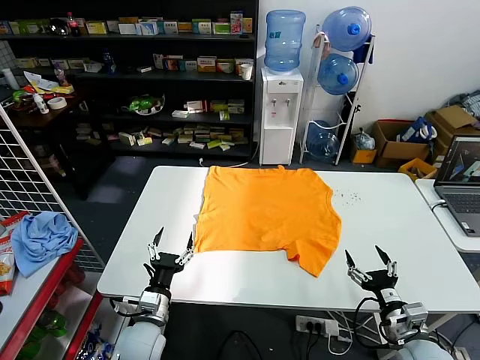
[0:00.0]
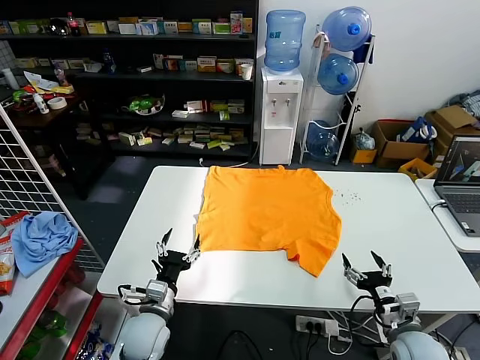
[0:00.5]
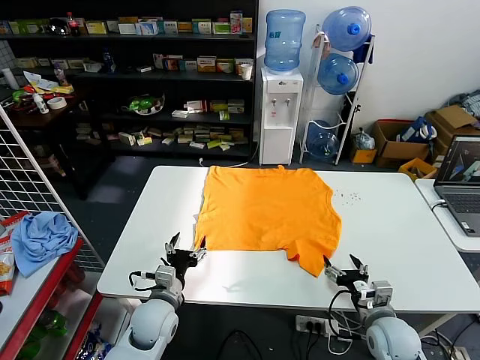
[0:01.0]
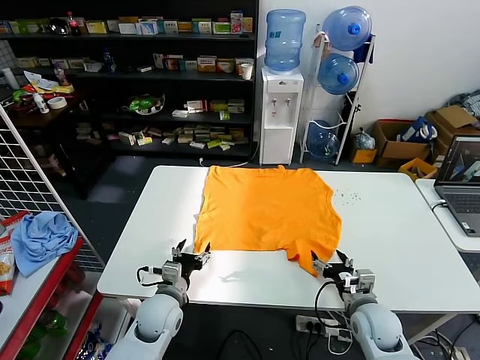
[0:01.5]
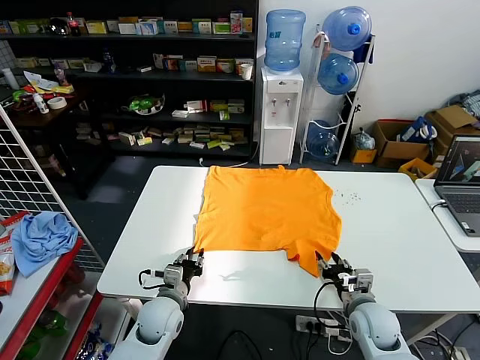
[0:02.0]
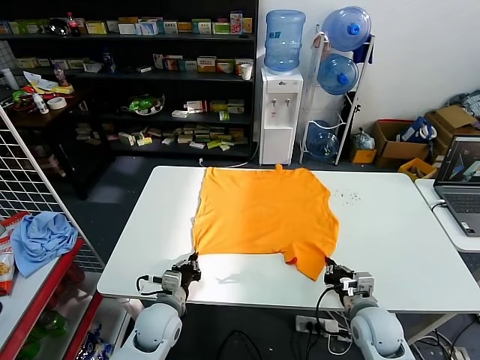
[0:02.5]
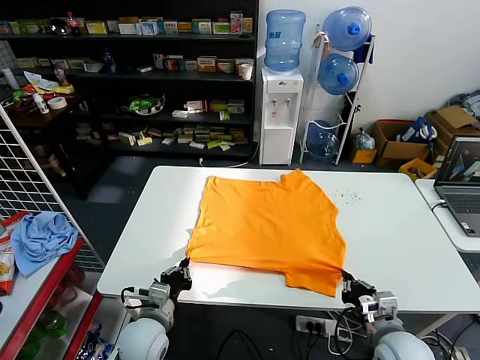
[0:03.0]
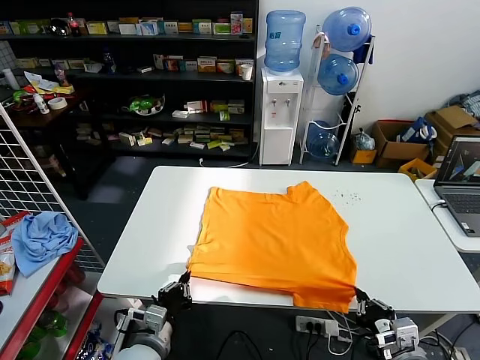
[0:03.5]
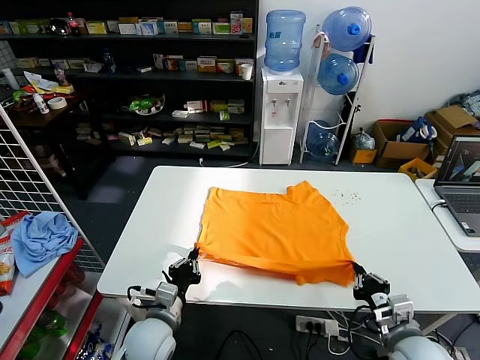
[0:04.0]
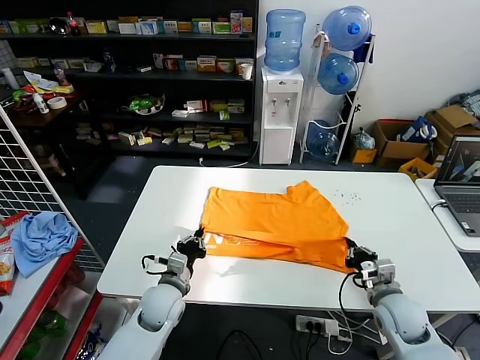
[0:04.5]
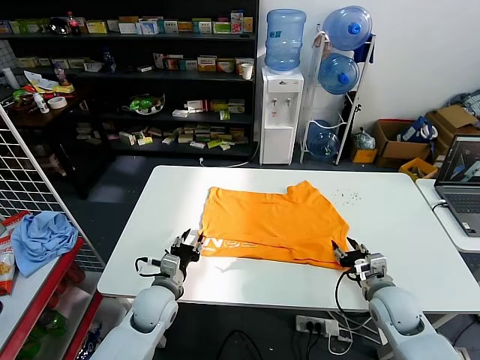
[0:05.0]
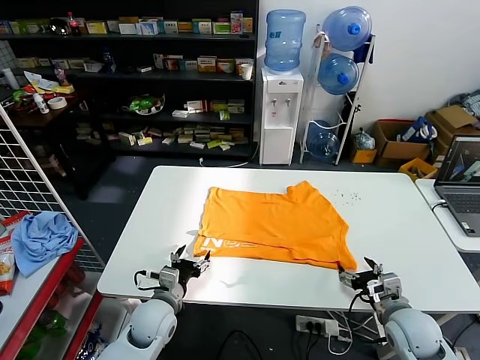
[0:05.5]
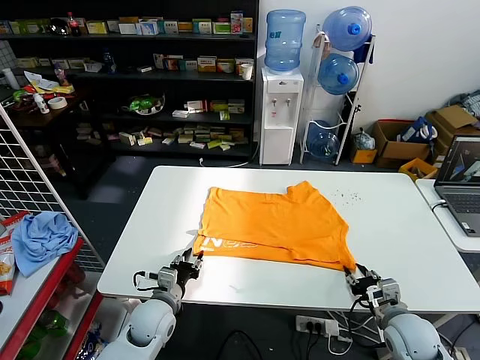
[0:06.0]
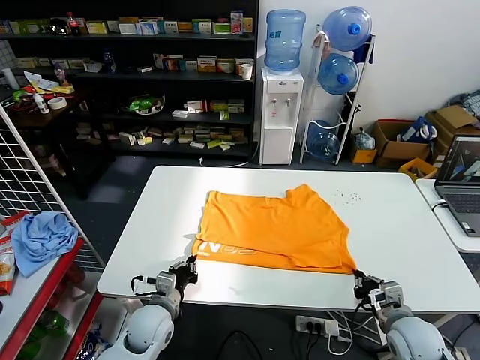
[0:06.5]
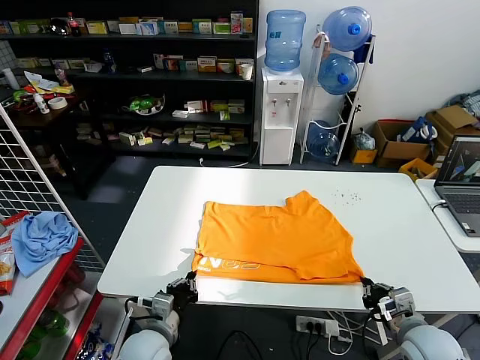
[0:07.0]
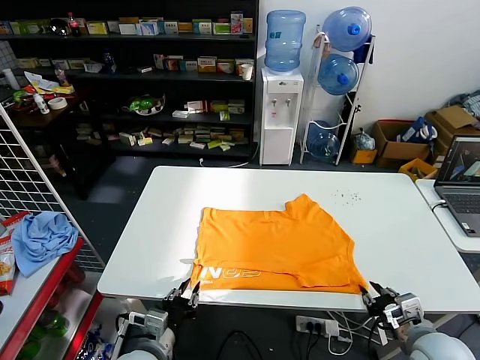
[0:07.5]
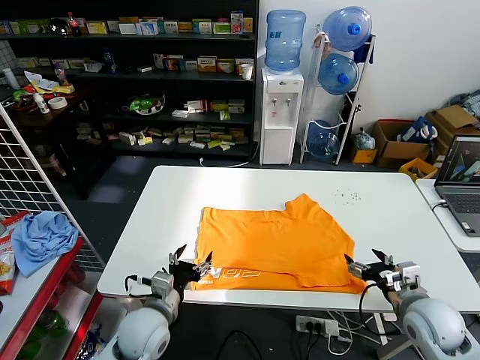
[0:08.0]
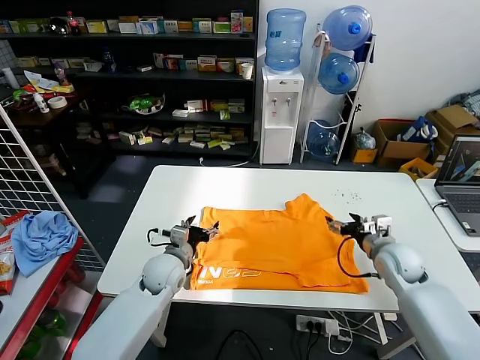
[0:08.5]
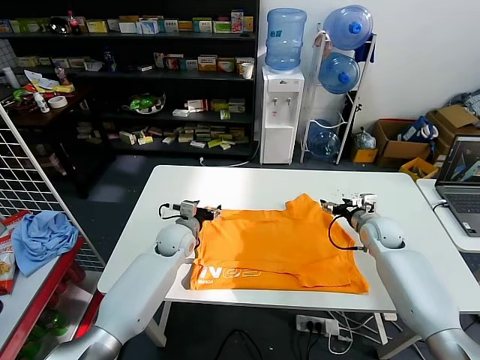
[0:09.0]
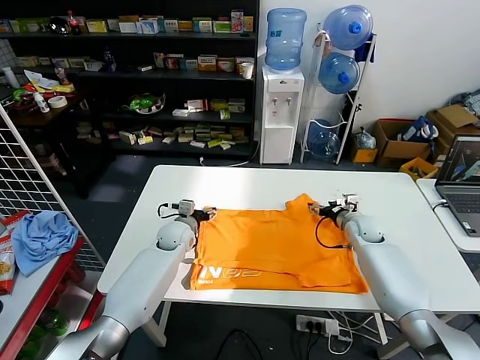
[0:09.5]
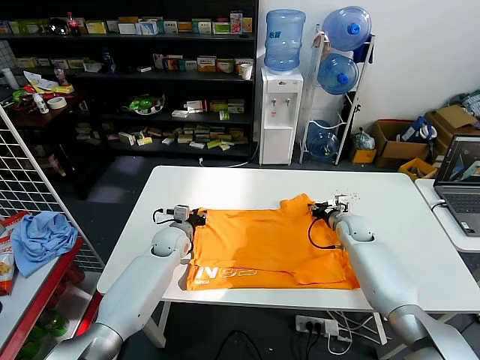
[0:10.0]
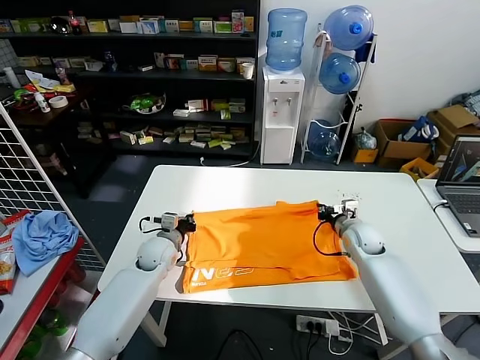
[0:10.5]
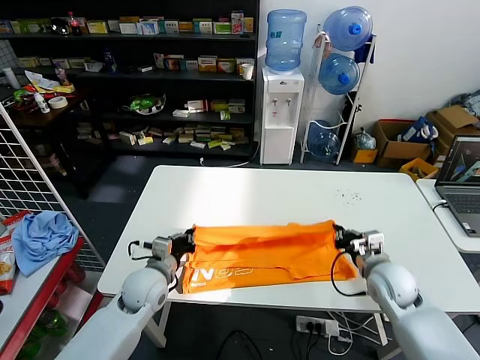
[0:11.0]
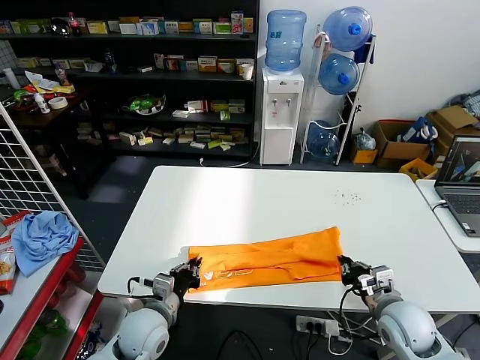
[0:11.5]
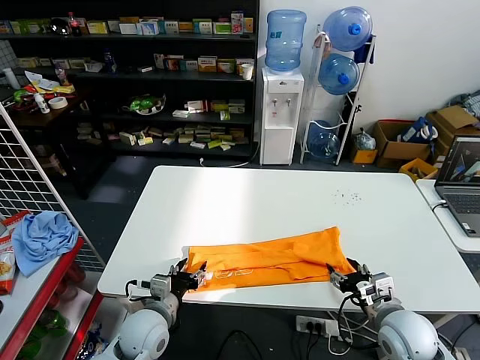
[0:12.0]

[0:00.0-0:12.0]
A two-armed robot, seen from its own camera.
Task of the whole recording: fold and organize the clothes.
Step, 0:00.0 to 0:02.0: use both grippers simultaneously to clamp the lower edge of the clothing fabric.
Step, 0:03.0 to 0:05.0: use both grippers to drag the lower edge of the fabric forward and fold it over the upper edge.
Step, 0:05.5 to 0:07.5: Drag the clothes downward with both gripper.
Step, 0:08.0 to 0:10.5: use both grippers simultaneously to clamp the upper edge of the clothing fabric.
Step, 0:11.0 to 0:12.0: use both grippers to drag the upper edge of the fabric backward and fold it over the lower edge.
0:02.0 to 0:04.0: The left gripper moves backward, about 5 cm, and closes up. The right gripper goes roughly 10 cm backward and upward, and closes up.
0:04.0 to 0:06.0: The right gripper opens. The left gripper shifts about 5 cm forward, and opens its fingers.
0:06.0 to 0:08.0: The left gripper shifts some 10 cm upward and backward, and opens up. The right gripper moves upward, roughly 5 cm, and opens up.
0:08.0 to 0:10.0: The grippers both shift forward by roughly 25 cm. The left gripper closes up; the right gripper closes its fingers.
0:10.0 to 0:12.0: Both grippers travel together backward, about 25 cm. The left gripper closes, then reopens. Meanwhile the right gripper opens its fingers.

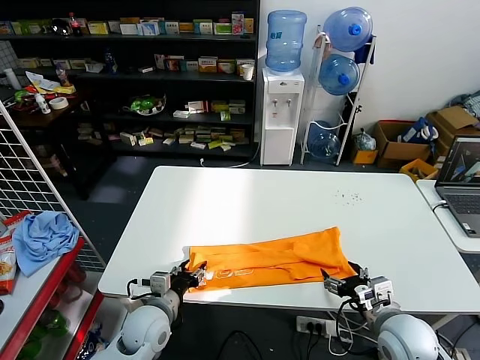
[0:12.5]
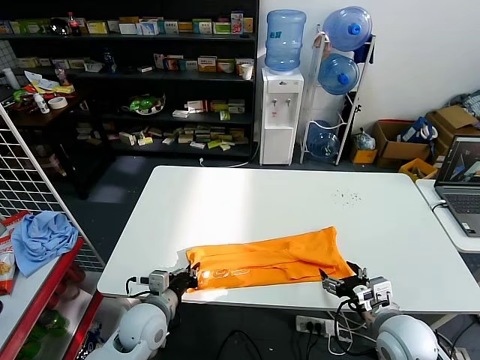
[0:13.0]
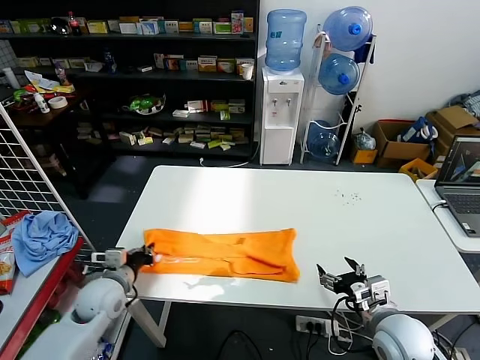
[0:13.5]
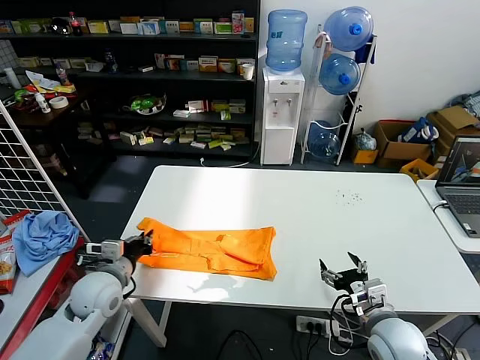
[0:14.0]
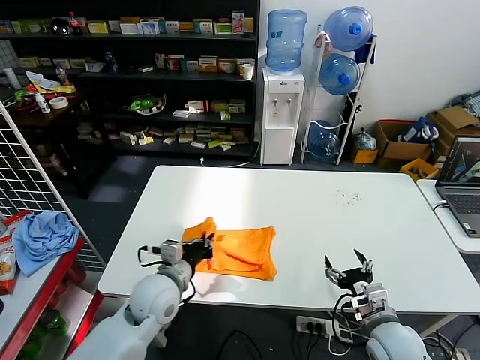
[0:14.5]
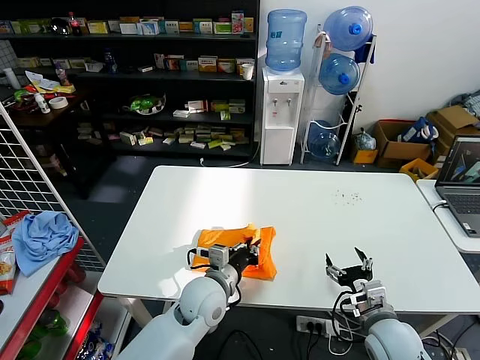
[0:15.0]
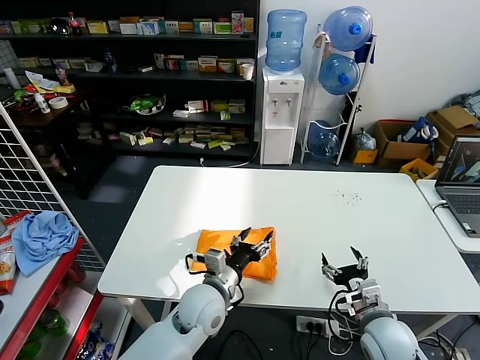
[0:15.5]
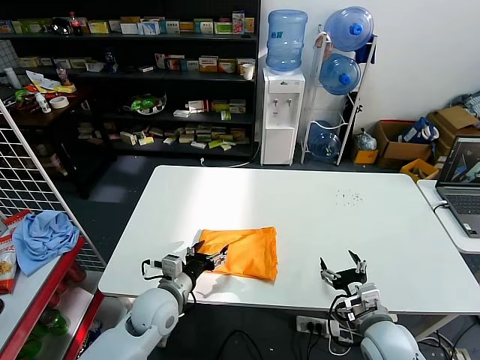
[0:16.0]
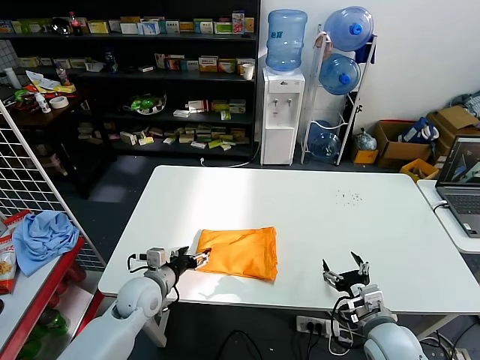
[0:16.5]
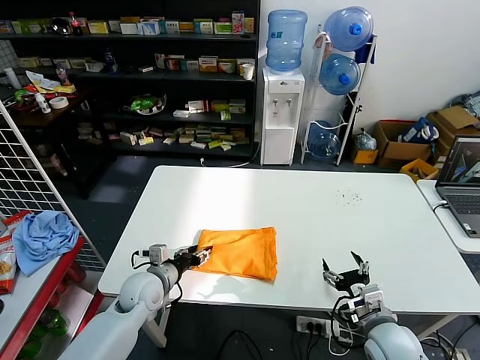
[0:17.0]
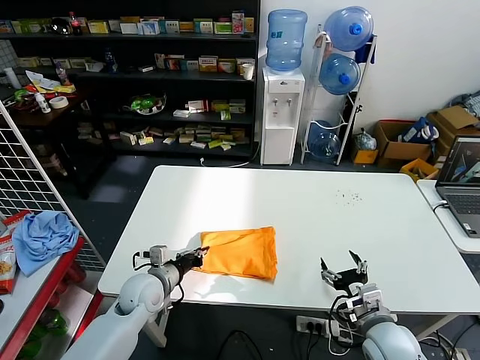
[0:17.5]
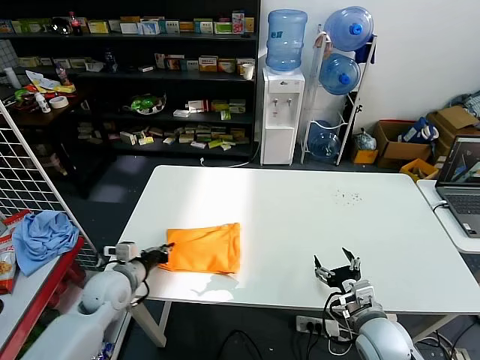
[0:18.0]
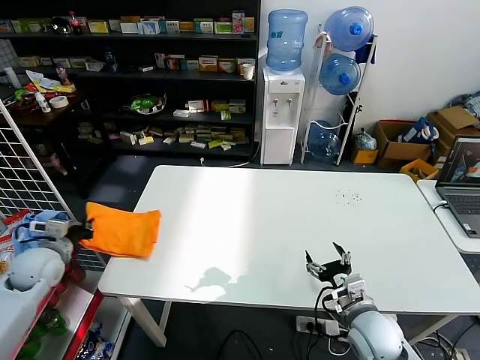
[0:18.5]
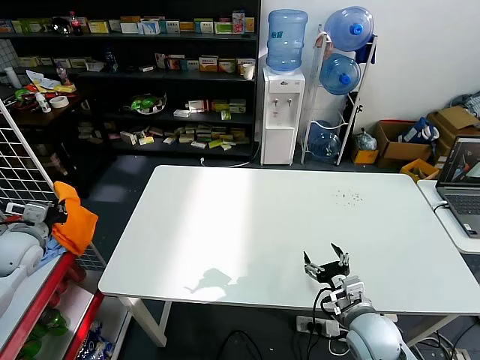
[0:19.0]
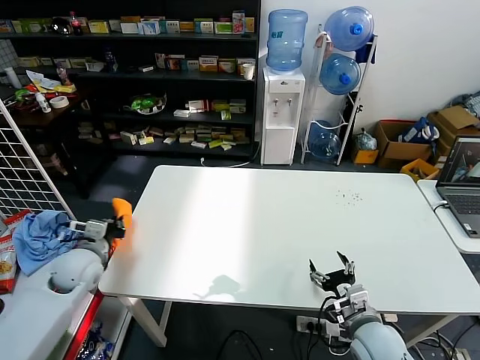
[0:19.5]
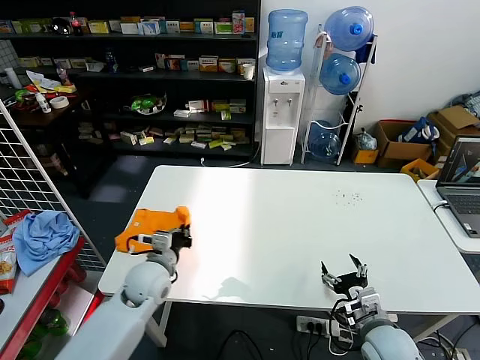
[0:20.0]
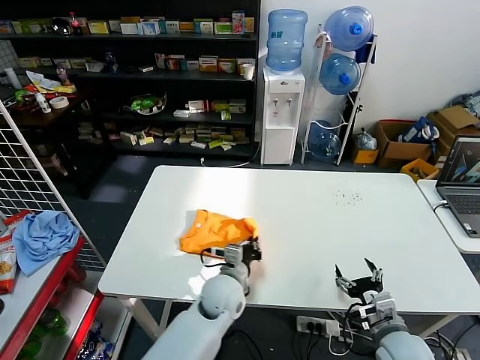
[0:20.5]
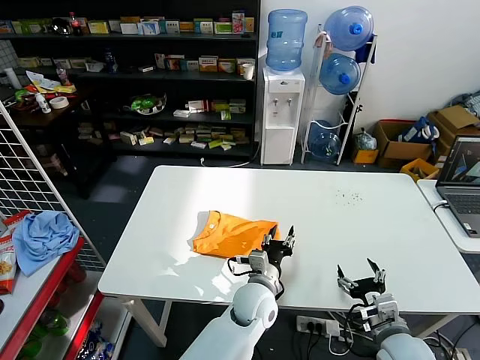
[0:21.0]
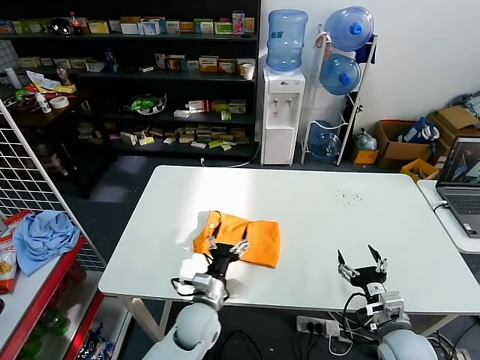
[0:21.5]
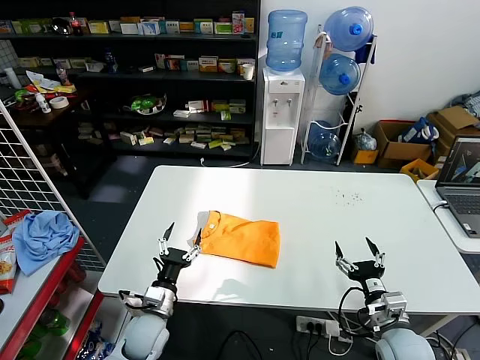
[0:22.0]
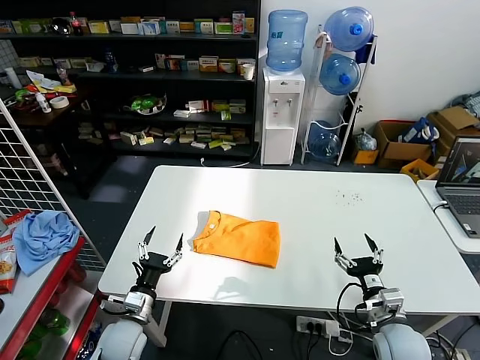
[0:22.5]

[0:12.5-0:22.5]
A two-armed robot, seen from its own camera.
Task of the whole recording: fold and organize the clothes.
Step, 0:13.5 to 0:15.0: use the left gripper to drag the left edge of the fabric to the left and folds it over the right edge.
Step, 0:15.5 to 0:21.0: Flip the folded clothes over with left gripper.
0:12.5 to 0:14.5: The left gripper travels upward by roughly 10 cm, travels to the left and back again, approximately 10 cm each way, and closes up.
0:14.5 to 0:16.5: The left gripper moves downward, some 5 cm, moves about 10 cm to the right and comes back, and opens up.
0:16.5 to 0:18.5: The left gripper is displaced to the left and upward by approximately 20 cm, and closes its fingers.
0:18.5 to 0:20.5: The left gripper travels to the right by roughly 40 cm. The right gripper moves about 5 cm.
0:20.5 to 0:22.5: The left gripper shifts roughly 20 cm to the left and backward, and opens.

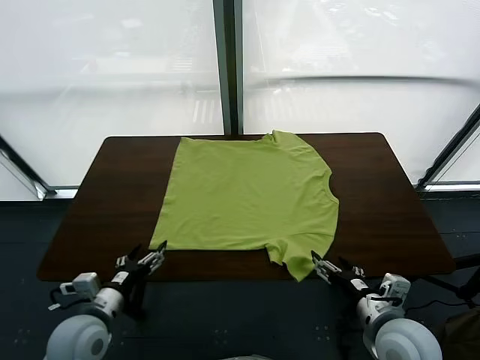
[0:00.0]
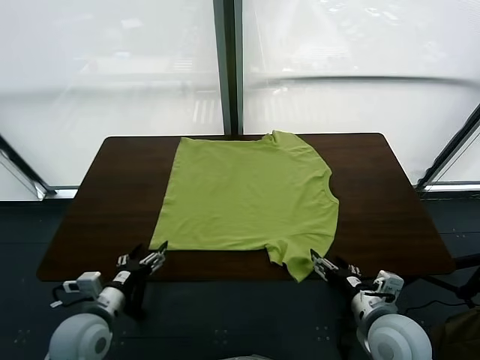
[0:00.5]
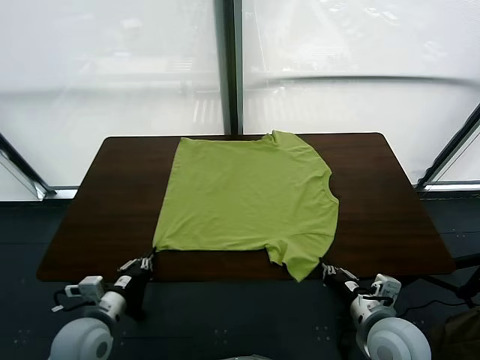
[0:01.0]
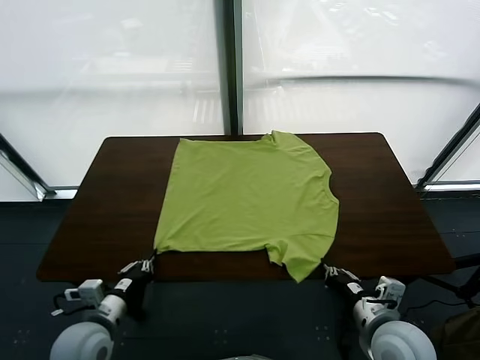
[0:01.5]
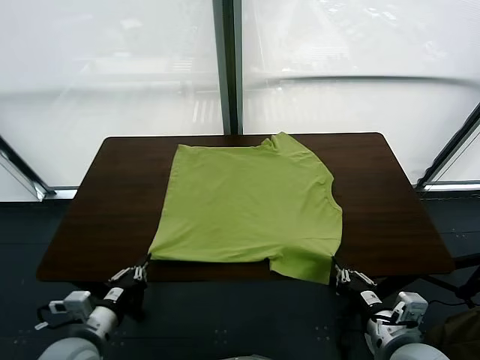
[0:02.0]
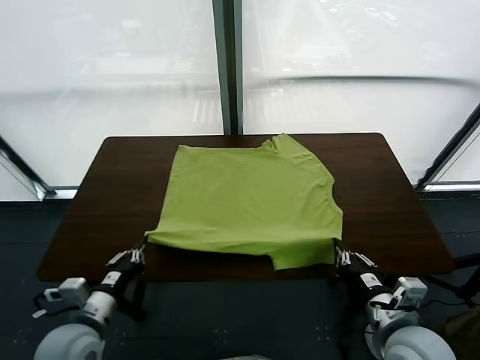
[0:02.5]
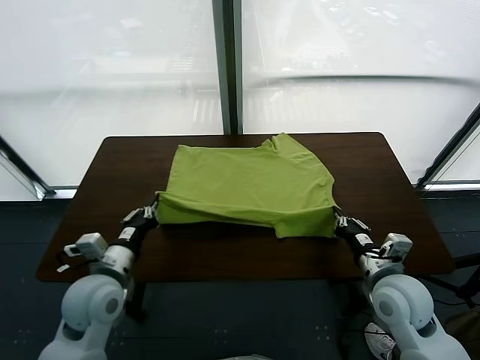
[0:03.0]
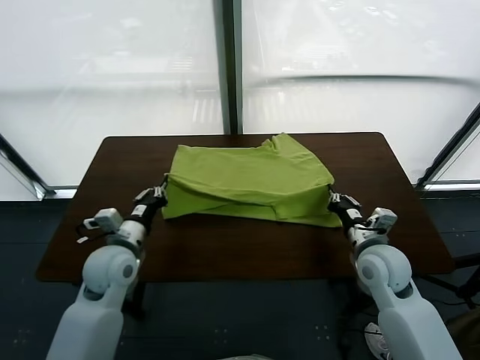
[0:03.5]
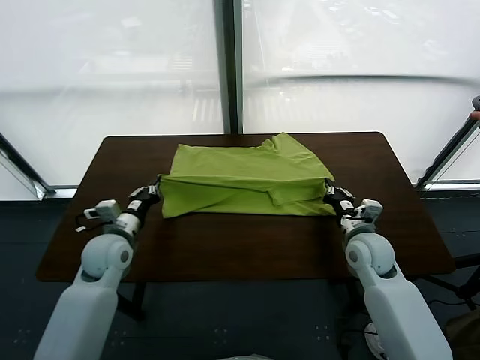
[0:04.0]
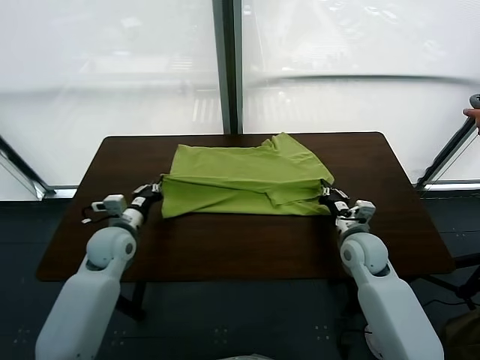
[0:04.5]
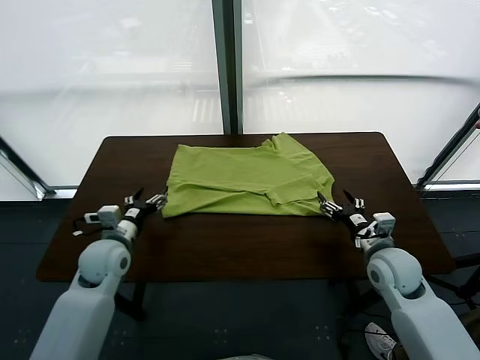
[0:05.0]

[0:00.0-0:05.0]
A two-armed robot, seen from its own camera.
Task of the whole recording: fold and organize the clothes.
Step, 0:00.0 to 0:01.5: use both grippers simultaneously to clamp the lower edge of the clothing fabric.
Step, 0:02.0 to 0:04.5: use both grippers to drag the lower edge of the fabric forward and fold it over the upper edge.
0:02.5 to 0:05.0: The left gripper is displaced forward and downward by about 15 cm, and opens, while the right gripper is displaced forward and to the right by roughly 15 cm, and opens.
